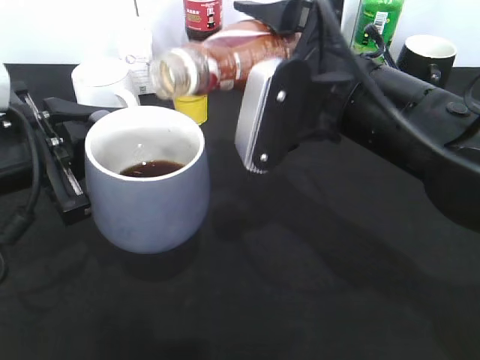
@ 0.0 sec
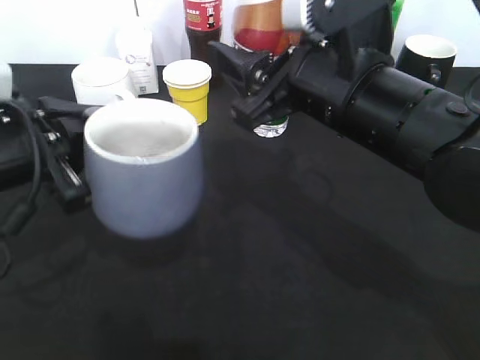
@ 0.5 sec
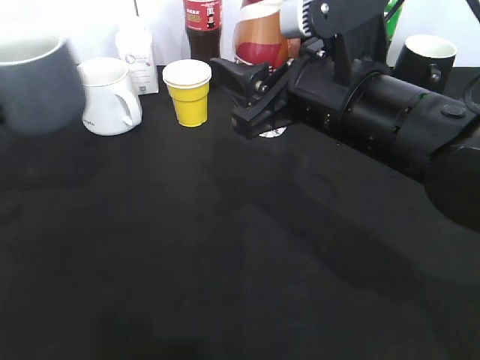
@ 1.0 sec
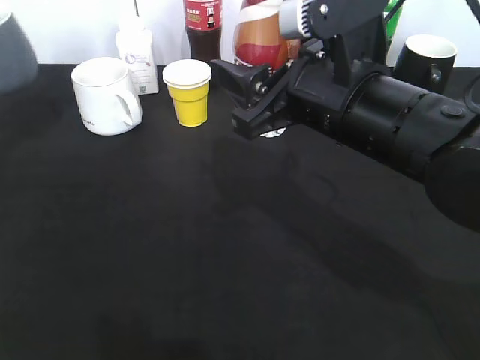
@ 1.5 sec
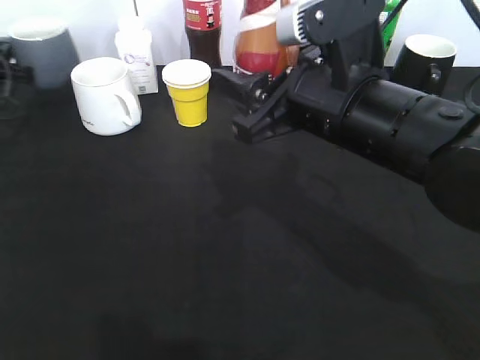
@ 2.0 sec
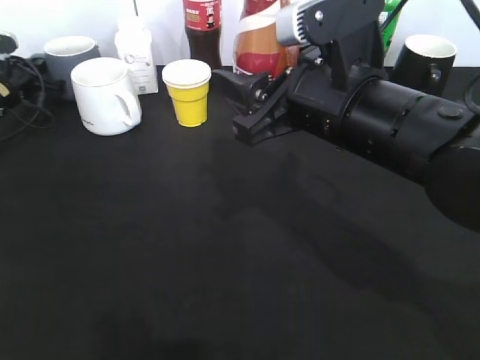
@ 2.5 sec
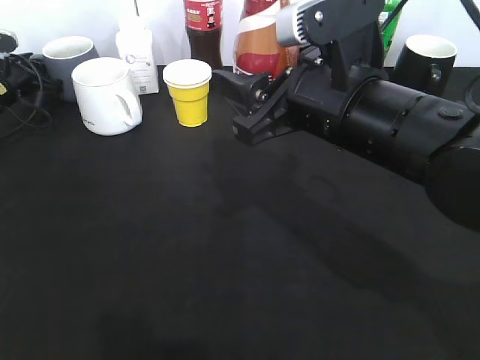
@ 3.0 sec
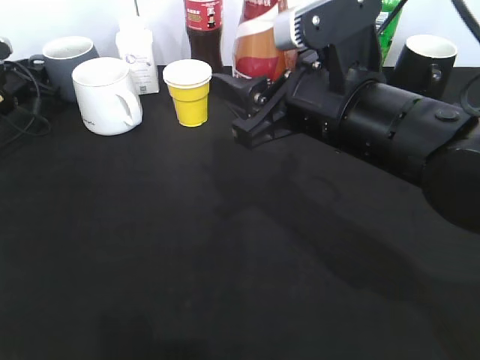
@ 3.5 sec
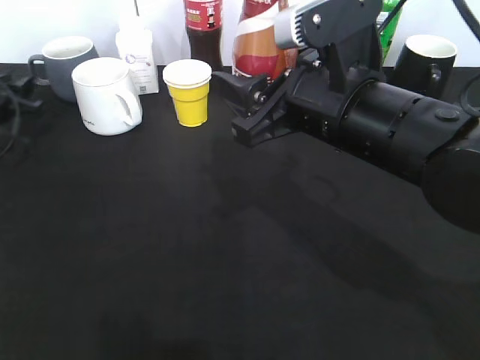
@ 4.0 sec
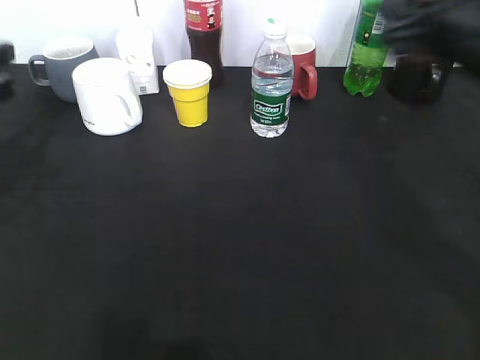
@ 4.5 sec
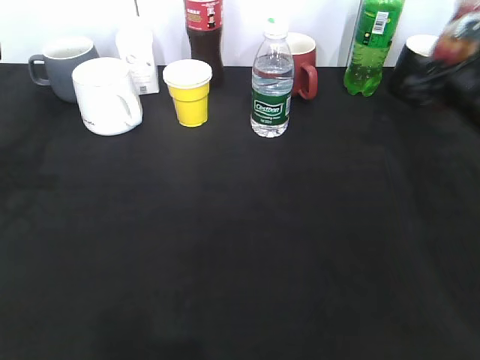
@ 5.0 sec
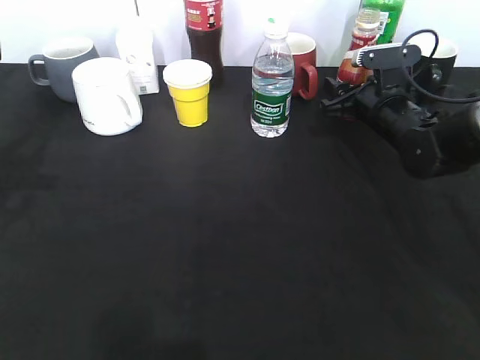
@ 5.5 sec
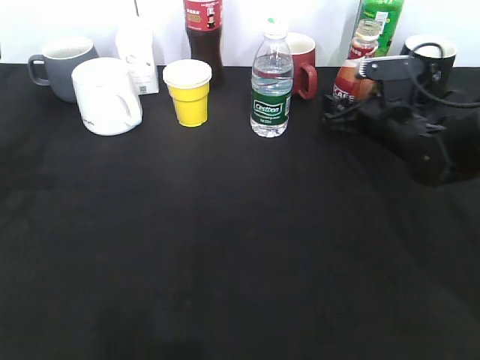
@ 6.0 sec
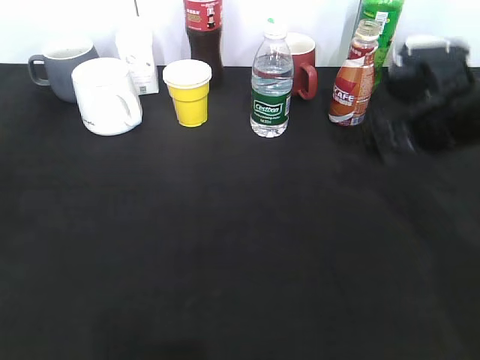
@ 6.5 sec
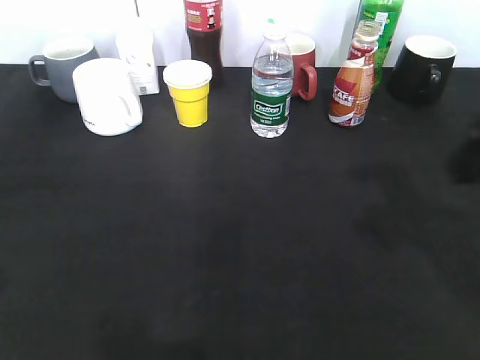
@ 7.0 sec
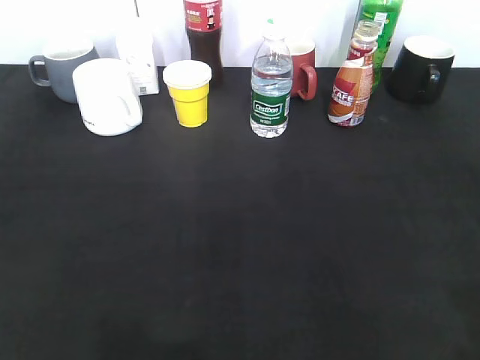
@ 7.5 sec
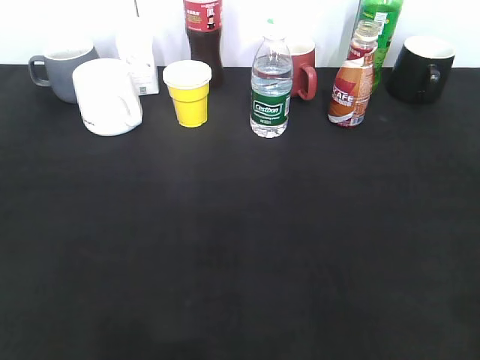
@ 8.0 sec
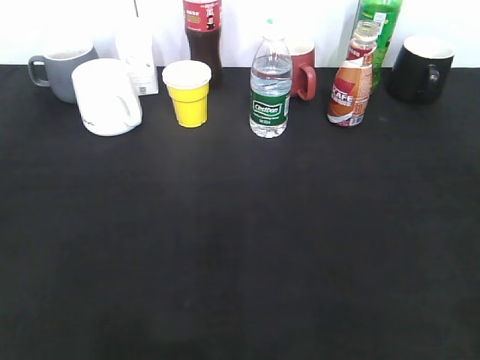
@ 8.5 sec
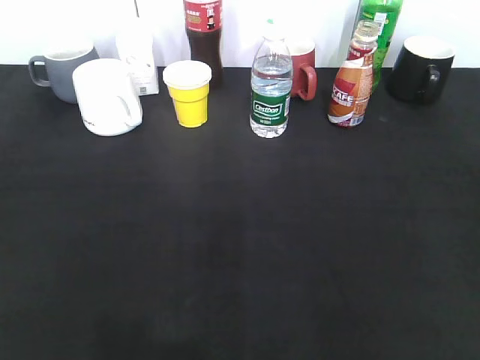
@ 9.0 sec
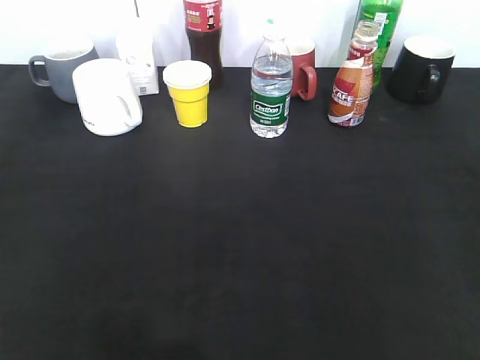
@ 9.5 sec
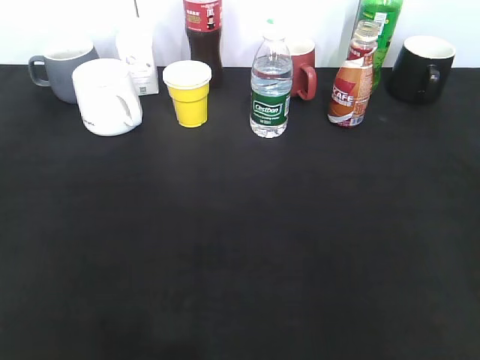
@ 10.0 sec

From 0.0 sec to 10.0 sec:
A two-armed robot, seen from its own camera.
Step, from 0.5 sec to 4.0 sec: Place the grey cup on the table with left gripper.
Step, from 4.5 sec to 6.0 sec: Place the coffee bottle on the table with right gripper.
From 0.0 sec to 2.0 sec: The left gripper shifts about 30 cm forward and to the left.
From 2.0 sec to 4.0 sec: The left gripper is displaced backward by some 5 cm, and opens its fingers.
From 4.0 sec to 6.0 sec: The left gripper goes roughly 20 cm backward and upward. The right gripper goes some 25 cm forward, downward and to the right, and opens its fingers.
From 6.0 sec to 8.0 sec: The left gripper travels backward by about 20 cm, while the right gripper goes roughly 40 cm backward and upward, and closes.
